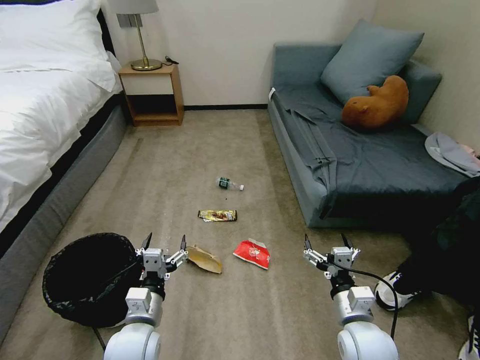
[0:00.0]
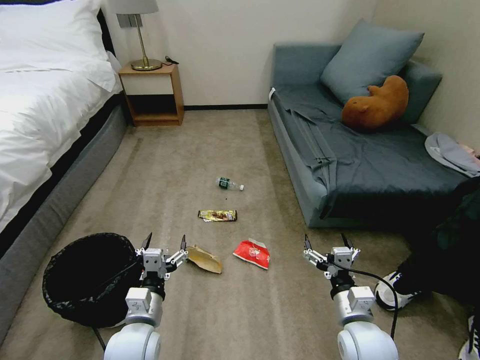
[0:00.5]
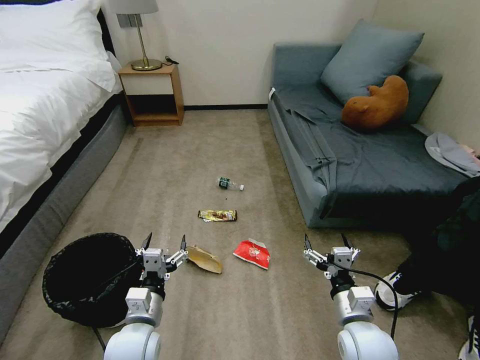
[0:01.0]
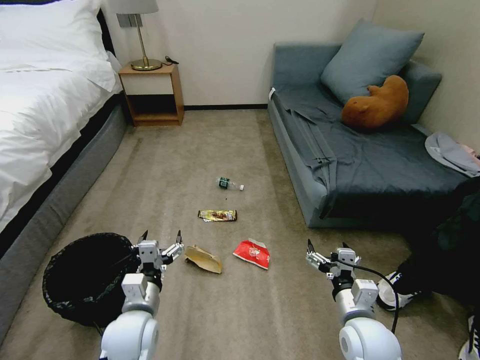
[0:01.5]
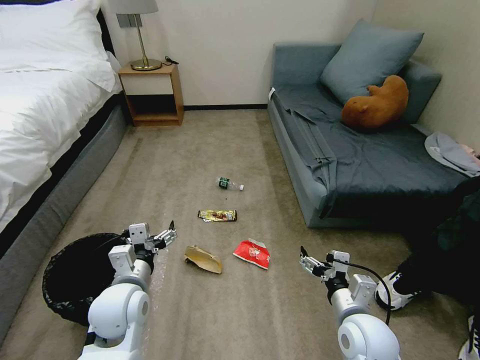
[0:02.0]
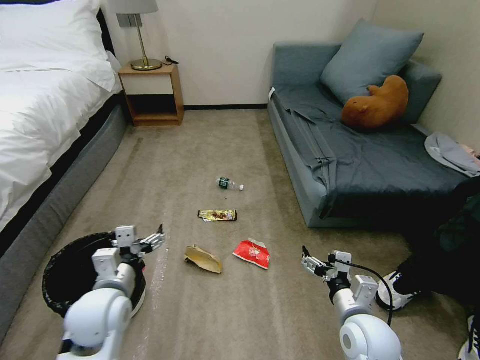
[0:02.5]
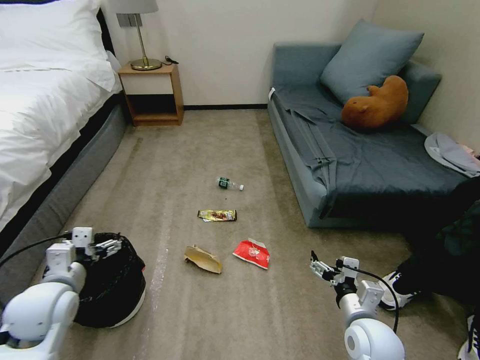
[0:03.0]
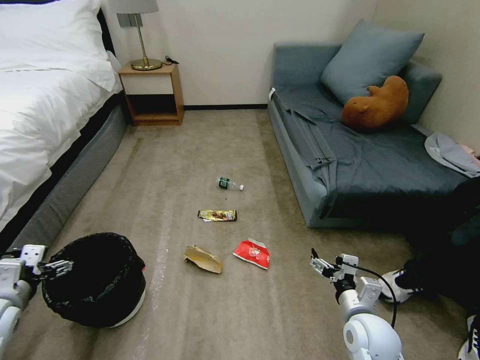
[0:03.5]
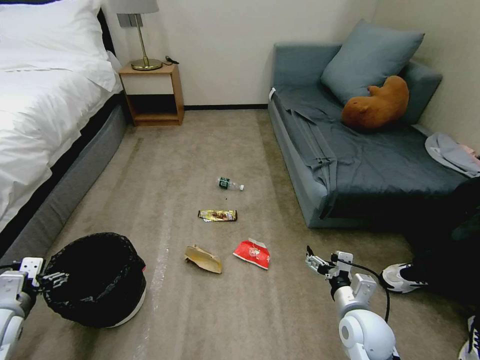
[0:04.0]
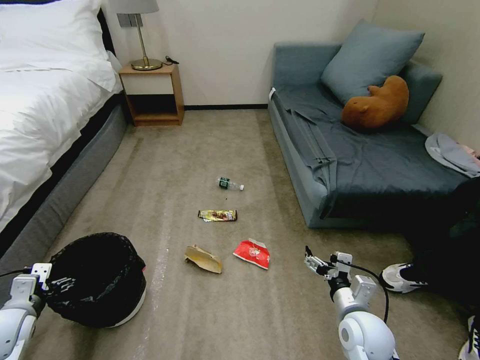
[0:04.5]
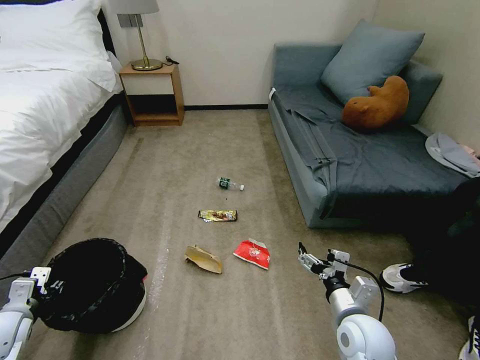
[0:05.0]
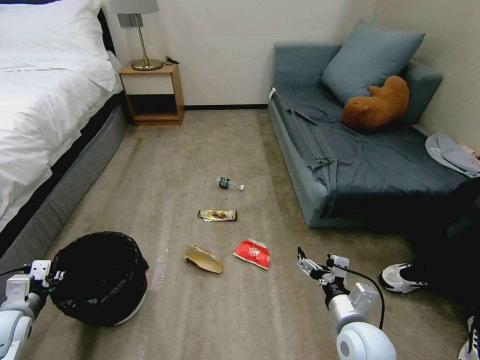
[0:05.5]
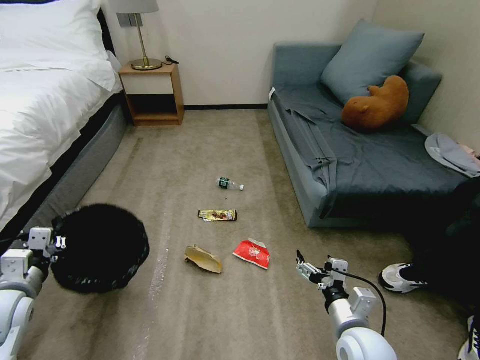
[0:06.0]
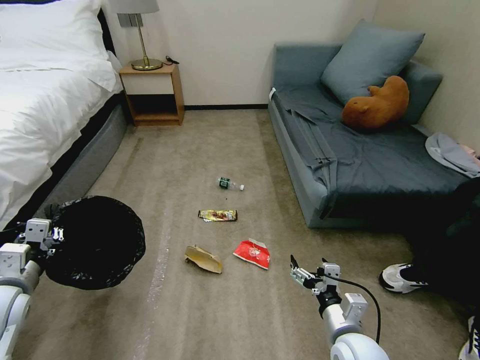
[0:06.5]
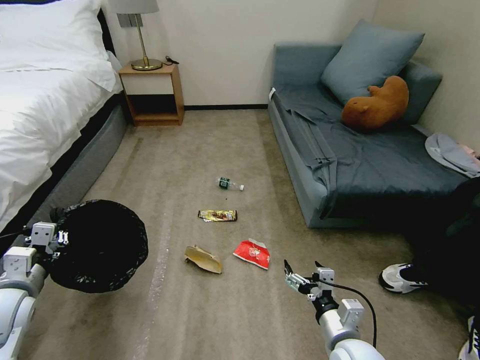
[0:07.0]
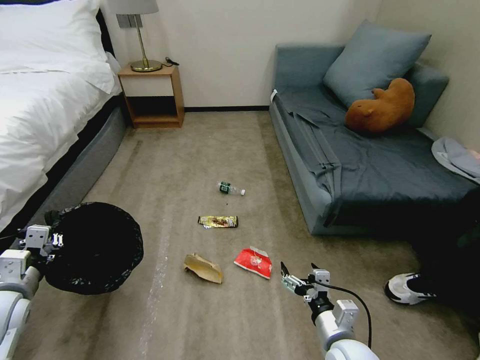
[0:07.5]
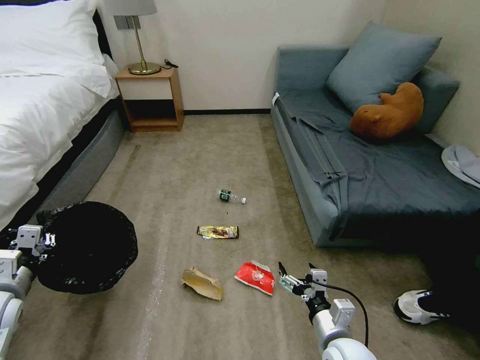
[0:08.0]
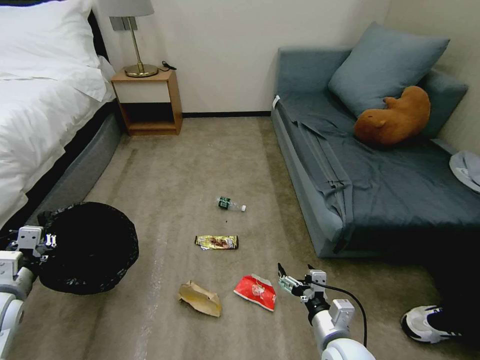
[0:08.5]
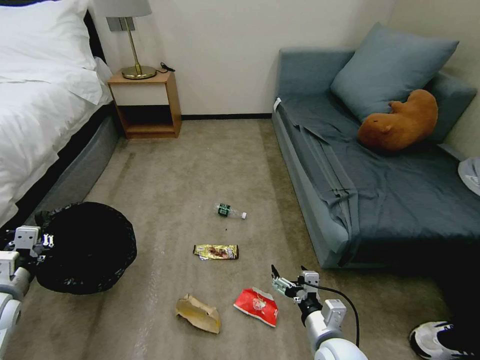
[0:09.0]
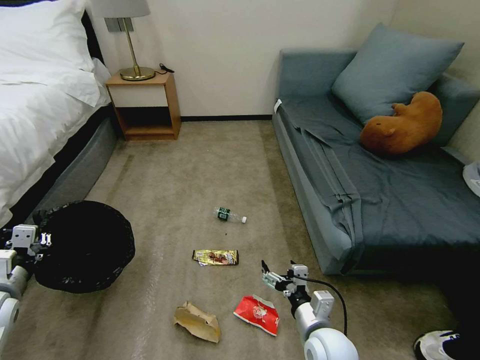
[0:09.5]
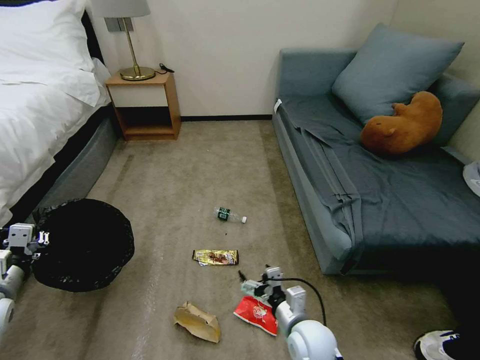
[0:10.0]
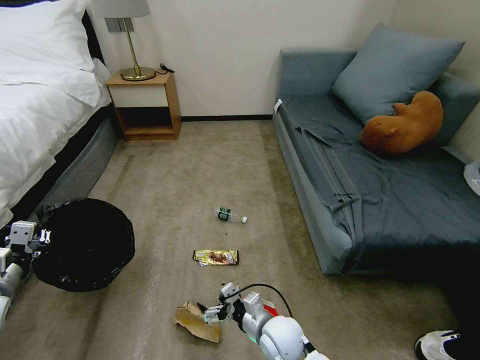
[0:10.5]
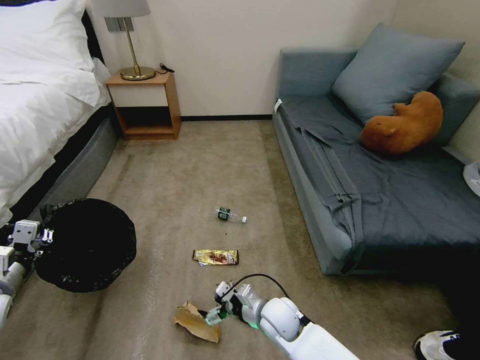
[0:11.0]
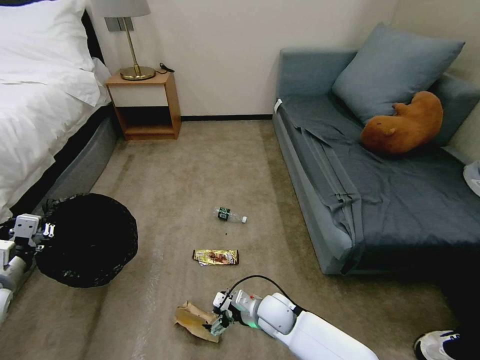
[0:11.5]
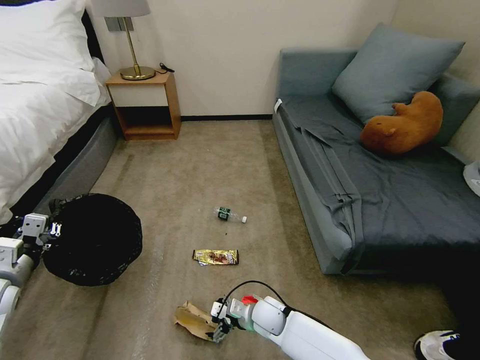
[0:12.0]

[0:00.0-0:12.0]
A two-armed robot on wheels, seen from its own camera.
Task of the whole recording: Pick up the trash bin, then pick up the garbage on the floor and place it into the trash bin.
0:02.0 to 0:04.0: The left gripper moves to the left, roughly 25 cm. Meanwhile the right gripper moves roughly 5 cm.
0:04.0 to 0:06.0: The right gripper changes place by approximately 5 cm, while the left gripper closes up.
0:08.0 to 0:10.0: The right gripper moves to the left, approximately 5 cm.
0:10.0 to 0:12.0: The right gripper shifts roughly 15 cm downward, forward and to the left.

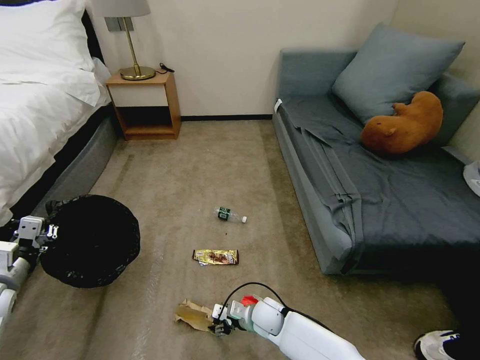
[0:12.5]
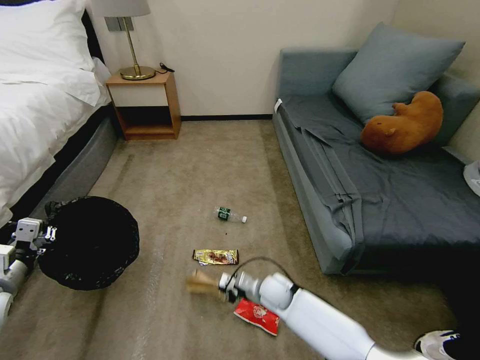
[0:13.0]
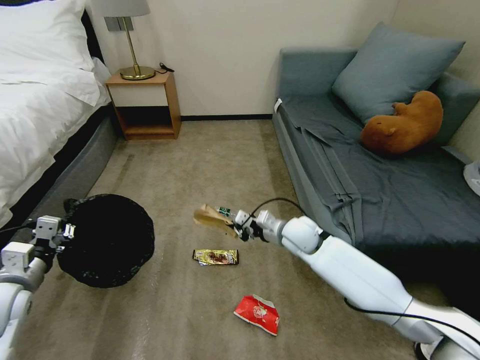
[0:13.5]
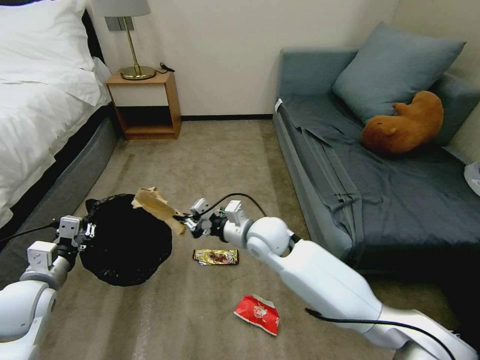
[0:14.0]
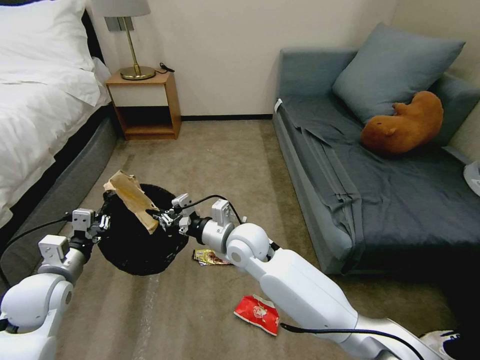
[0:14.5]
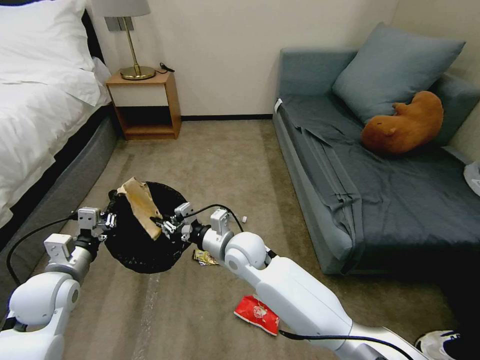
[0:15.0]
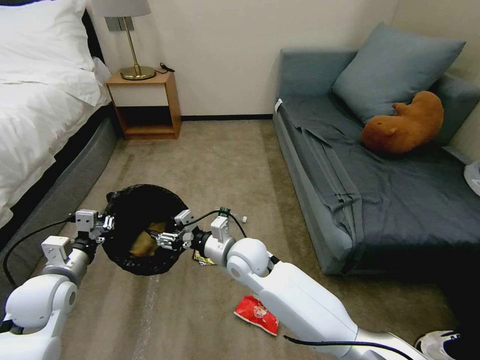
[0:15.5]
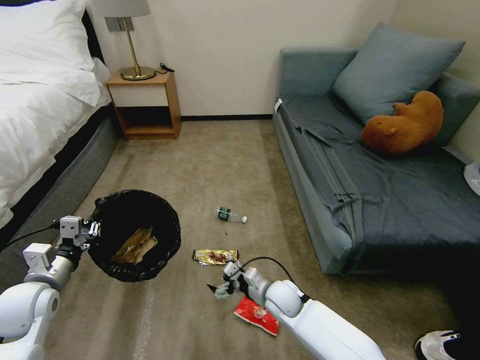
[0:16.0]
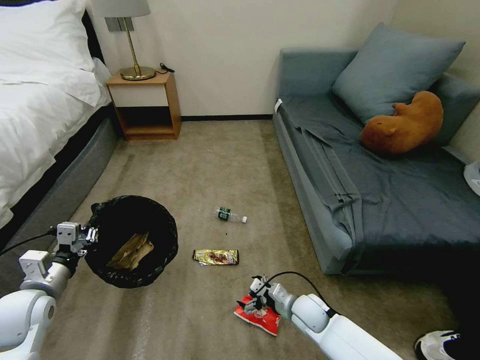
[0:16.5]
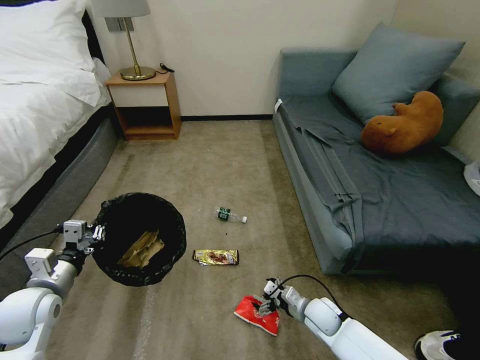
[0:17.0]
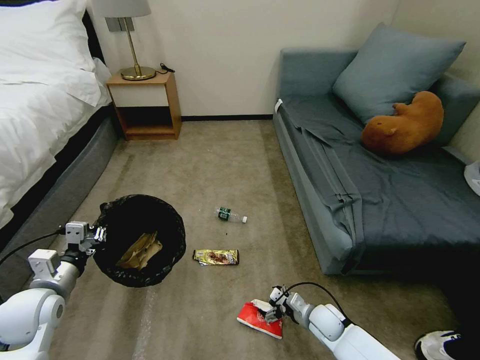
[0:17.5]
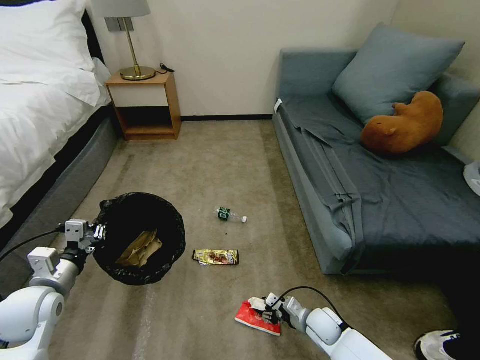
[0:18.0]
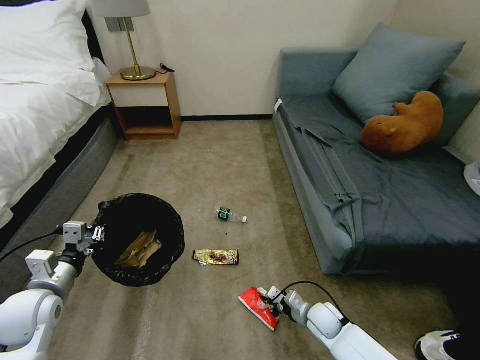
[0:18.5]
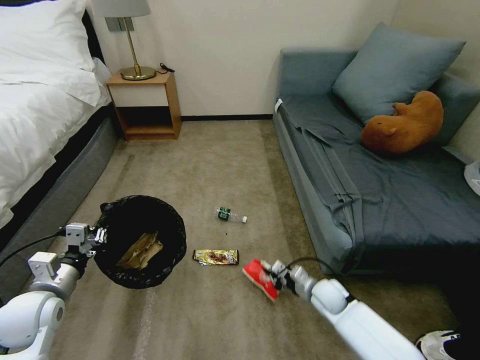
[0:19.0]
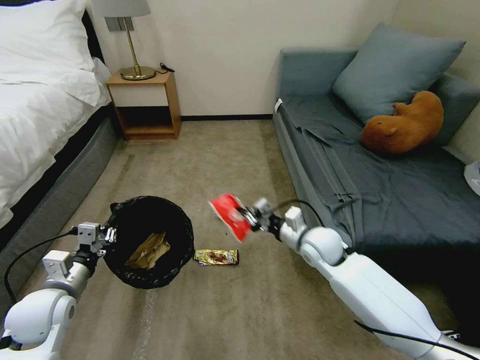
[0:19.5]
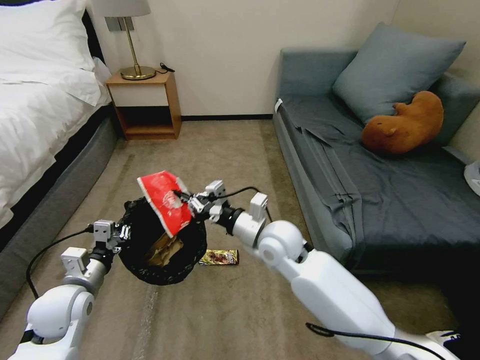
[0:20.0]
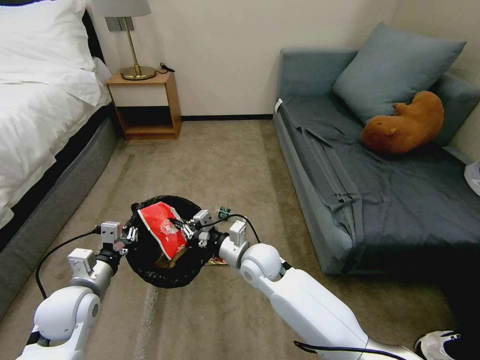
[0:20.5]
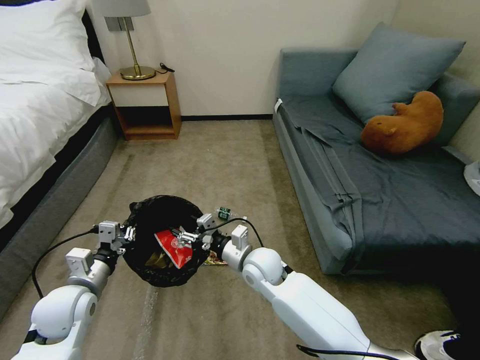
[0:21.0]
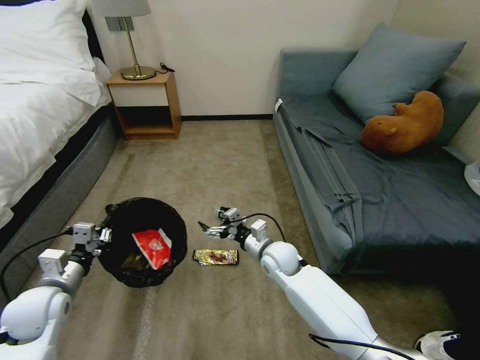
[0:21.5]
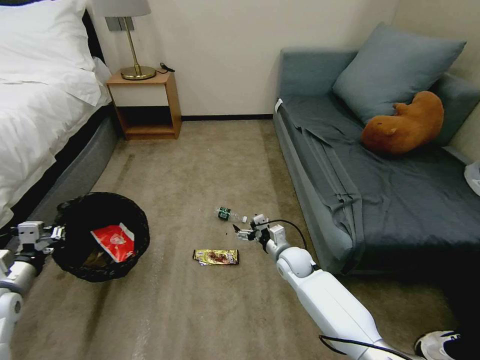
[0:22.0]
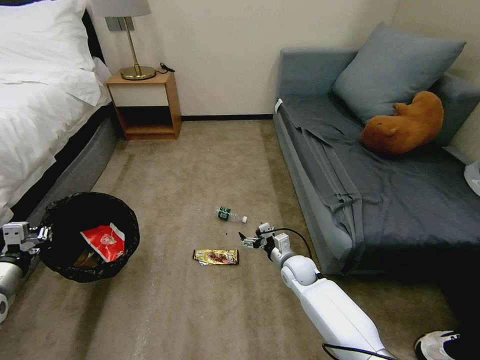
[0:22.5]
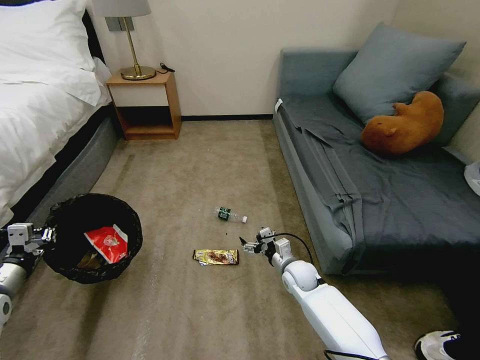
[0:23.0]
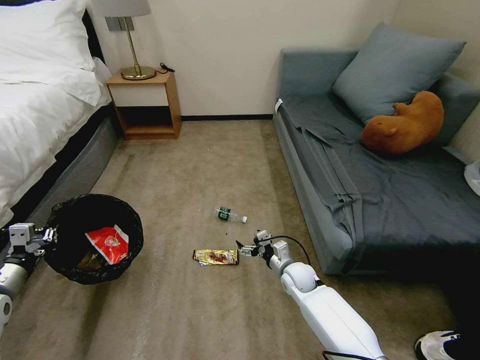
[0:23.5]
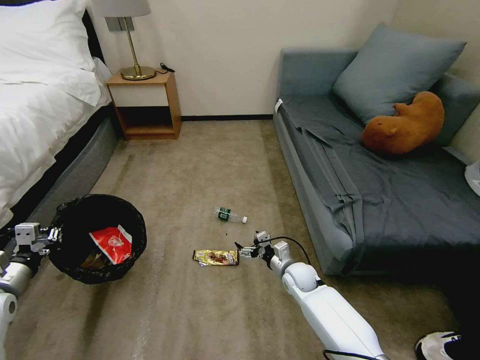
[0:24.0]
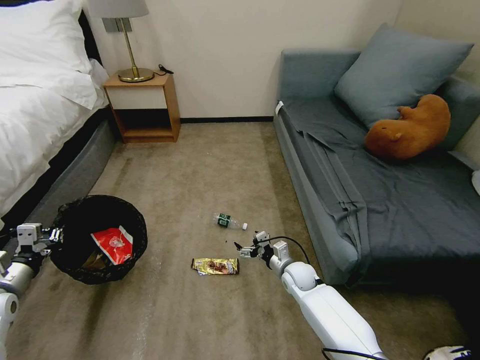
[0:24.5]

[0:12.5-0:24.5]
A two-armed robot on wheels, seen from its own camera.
Task of the whole recording: Pick up the trash bin, then pick up the garbage on the floor and place it into the trash bin.
0:12.5 to 0:14.5: The right gripper travels upward by some 25 cm, and closes, while the left gripper moves to the right, some 10 cm.
0:14.5 to 0:16.5: The right gripper moves downward and to the right, some 30 cm, and opens its fingers.
0:16.5 to 0:18.5: The right gripper travels to the right by roughly 5 cm, and closes its fingers.
0:18.5 to 0:20.5: The left gripper goes roughly 5 cm to the right. The right gripper moves upward and to the left, roughly 30 cm.
0:20.5 to 0:22.5: The left gripper shifts some 20 cm to the left. Meanwhile the right gripper goes some 15 cm to the right and downward, and opens its fingers.
0:22.5 to 0:24.5: The grippers make only small movements.

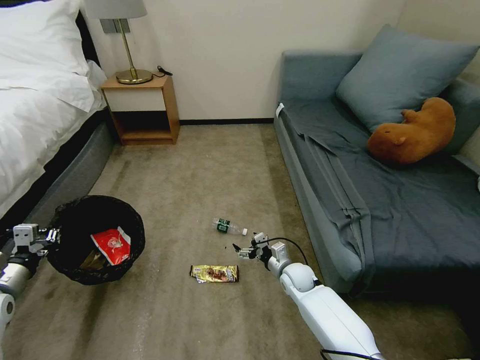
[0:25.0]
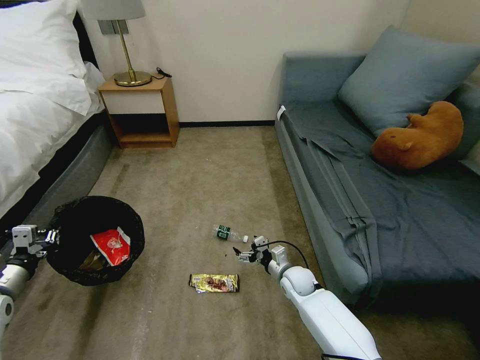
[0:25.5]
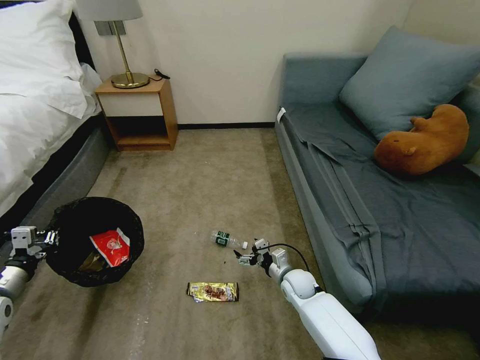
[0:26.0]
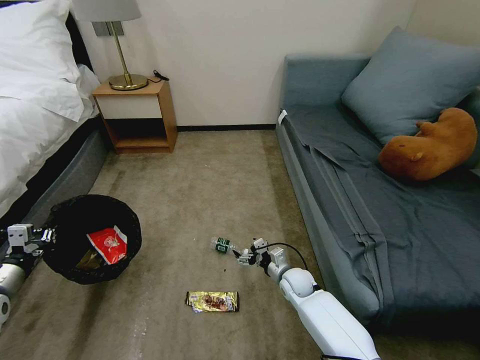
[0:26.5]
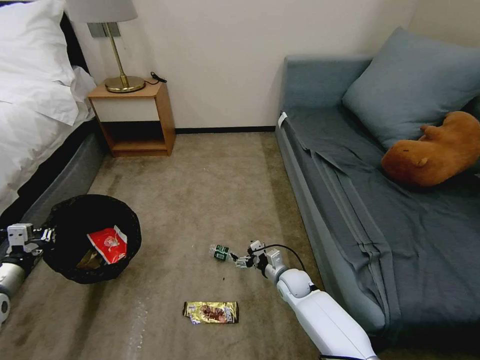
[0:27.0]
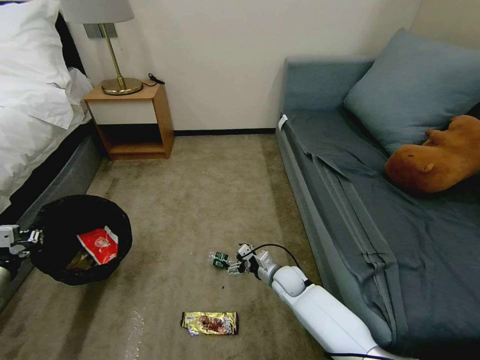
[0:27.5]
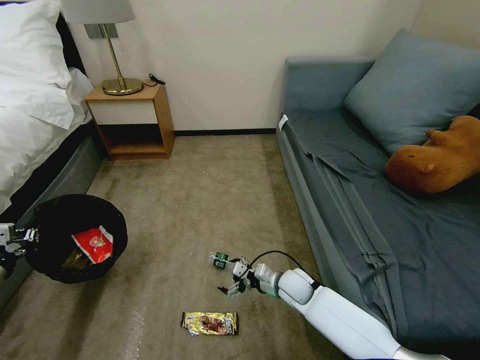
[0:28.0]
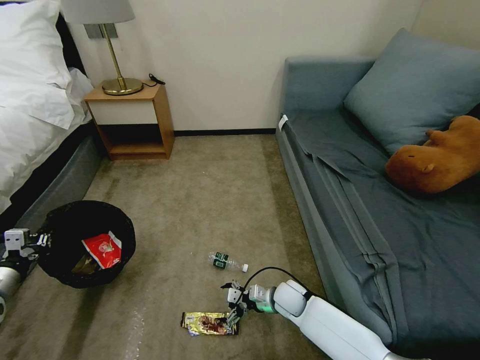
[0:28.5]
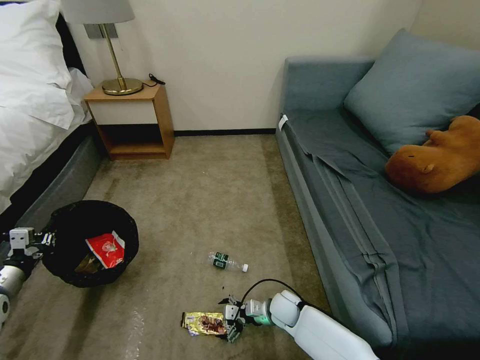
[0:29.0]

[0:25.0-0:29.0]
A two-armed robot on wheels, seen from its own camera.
Task of the whole recording: Pick up the trash bin, then pick up the garbage on the floor and place it into the trash bin.
0:27.0 to 0:29.0: The right gripper is displaced backward by some 5 cm.
